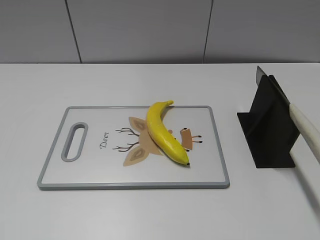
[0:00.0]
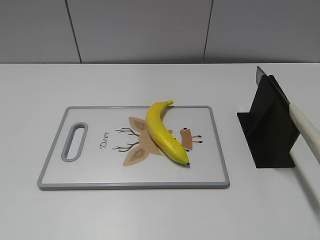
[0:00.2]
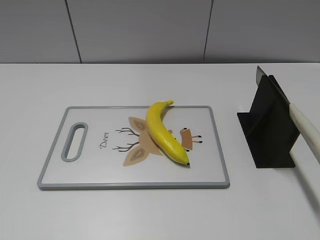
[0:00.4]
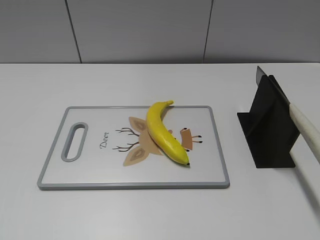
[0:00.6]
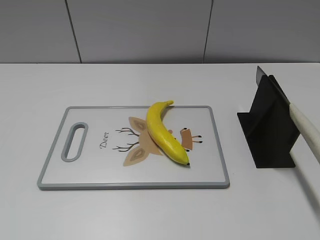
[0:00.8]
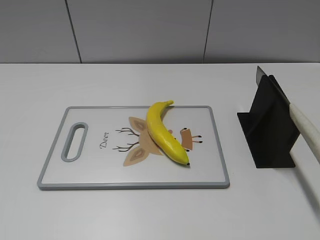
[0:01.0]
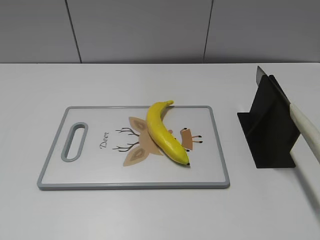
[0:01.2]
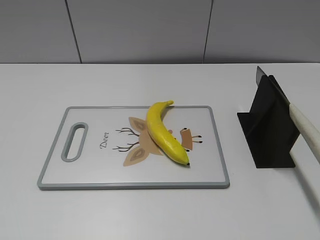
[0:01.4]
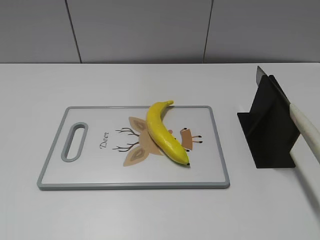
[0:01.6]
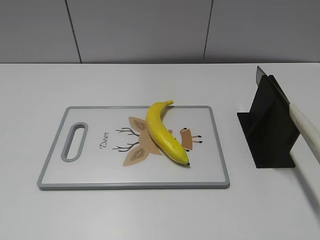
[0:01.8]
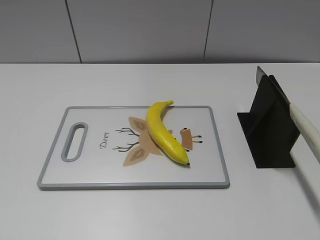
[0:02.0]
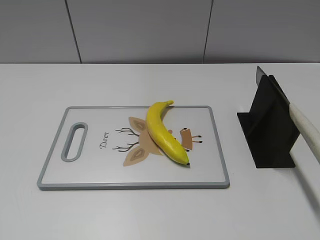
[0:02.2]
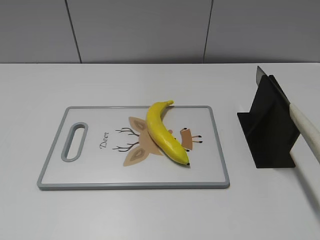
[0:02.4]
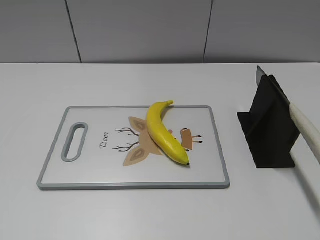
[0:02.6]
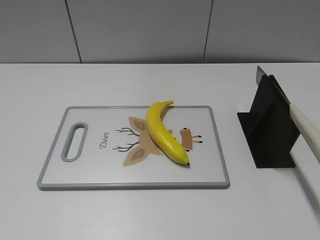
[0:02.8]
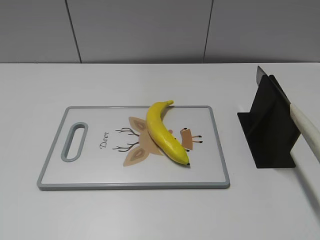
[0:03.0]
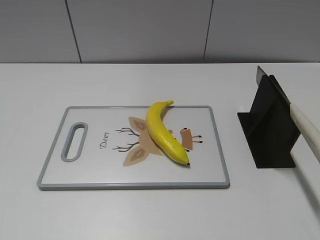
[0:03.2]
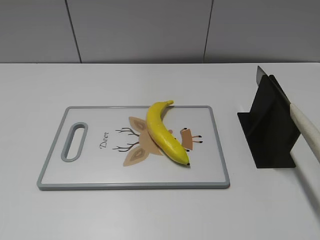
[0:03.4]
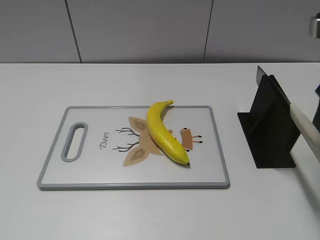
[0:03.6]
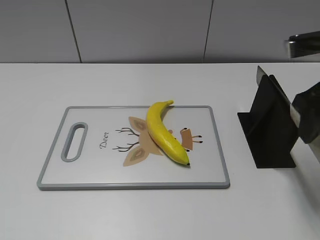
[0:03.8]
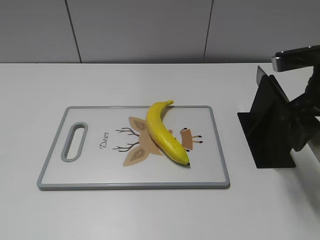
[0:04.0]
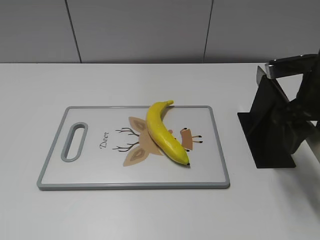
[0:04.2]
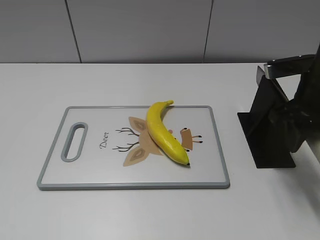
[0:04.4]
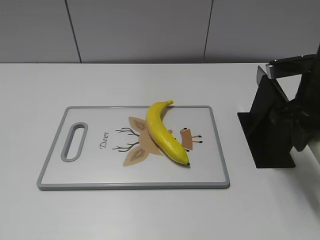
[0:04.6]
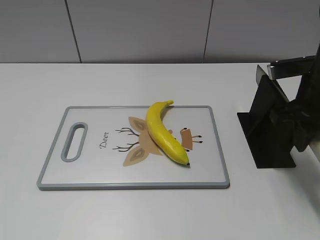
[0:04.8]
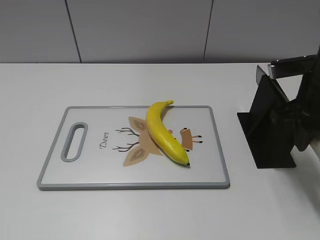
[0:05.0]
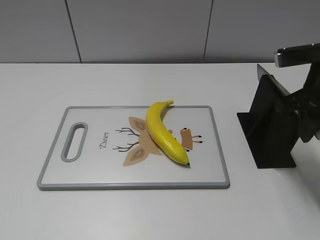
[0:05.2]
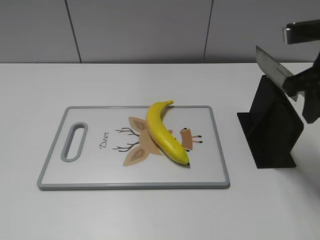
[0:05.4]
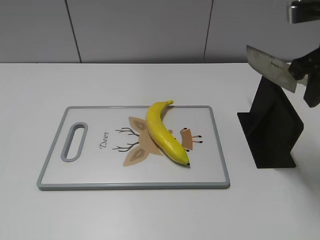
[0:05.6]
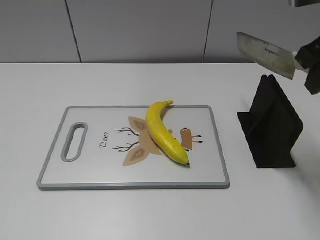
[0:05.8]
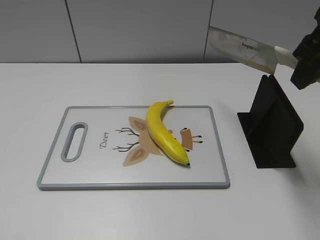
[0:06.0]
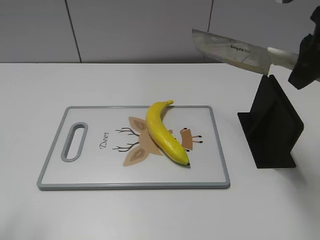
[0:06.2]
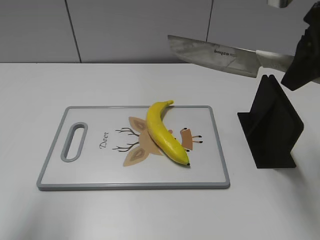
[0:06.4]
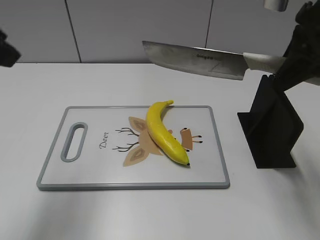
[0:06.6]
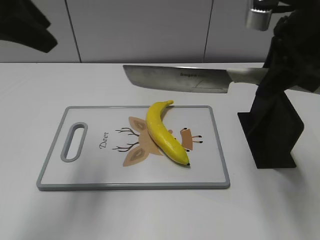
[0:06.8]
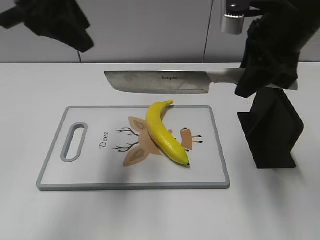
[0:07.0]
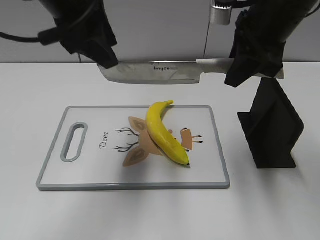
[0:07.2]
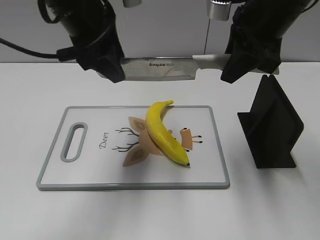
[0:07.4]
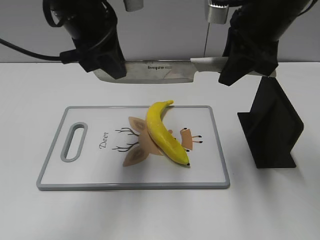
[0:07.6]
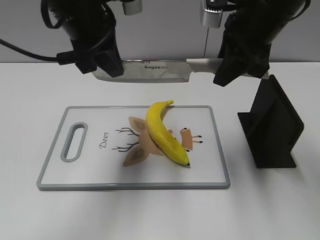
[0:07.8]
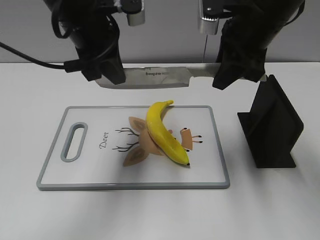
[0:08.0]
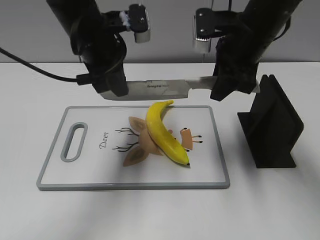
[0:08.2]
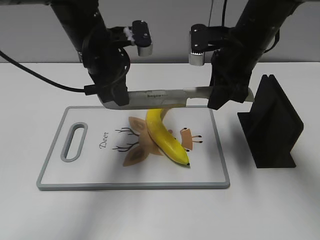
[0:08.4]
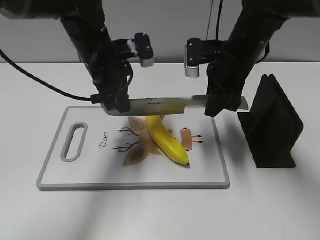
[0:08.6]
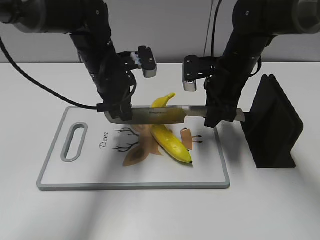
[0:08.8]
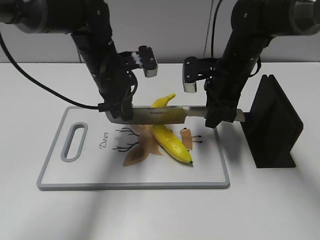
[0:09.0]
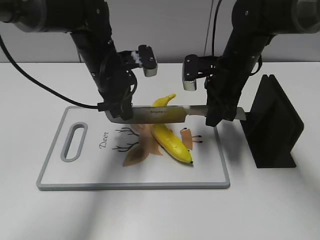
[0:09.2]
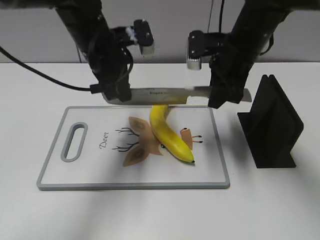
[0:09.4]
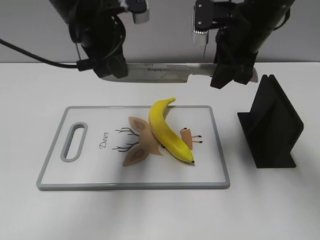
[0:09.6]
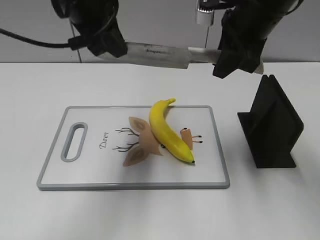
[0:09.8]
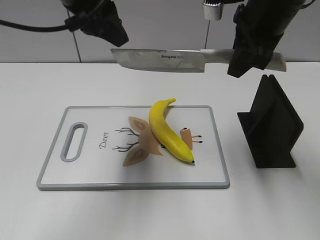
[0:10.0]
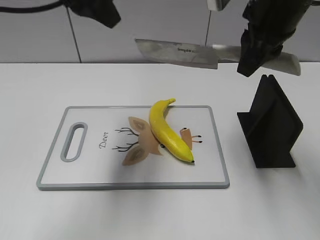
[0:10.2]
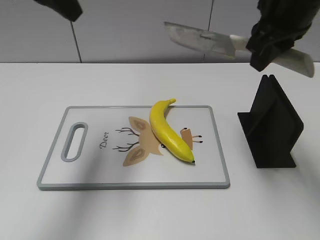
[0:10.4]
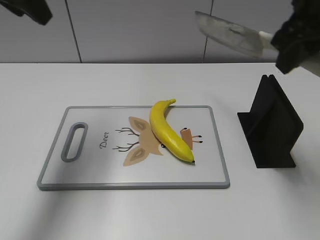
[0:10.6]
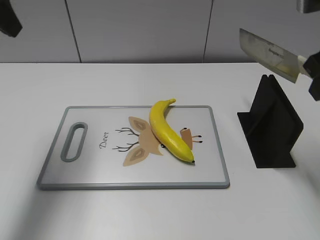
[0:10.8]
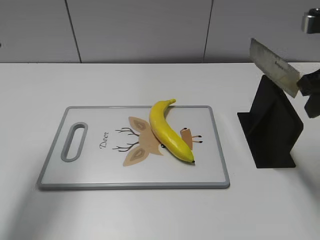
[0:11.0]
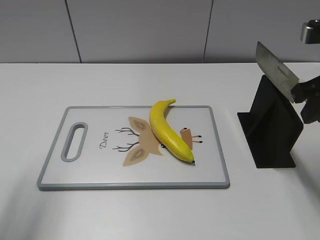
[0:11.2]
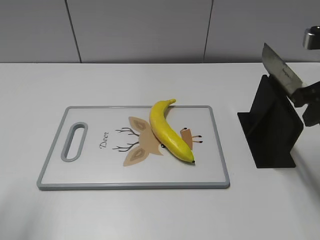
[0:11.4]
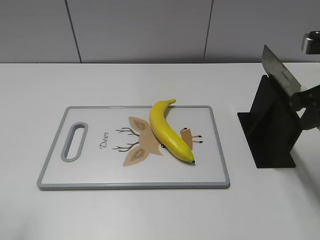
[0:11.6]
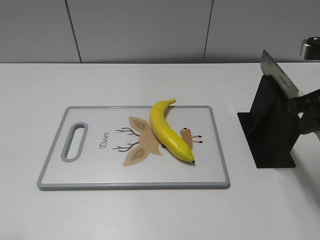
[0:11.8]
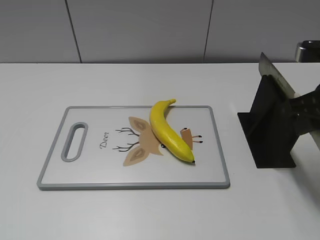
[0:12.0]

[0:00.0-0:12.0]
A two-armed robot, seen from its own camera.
Task of the whole recording: cut plastic banana.
Step, 0:00.0 to 0:06.0: Grab the knife handle with your right hand.
Step, 0:06.2 to 0:09.6: Lift the knife with your right hand.
Step, 0:09.8 to 0:11.2: Cut the banana with your right hand.
0:03.0 to 0:04.4: The right gripper shifts about 20 cm downward, forward and to the left, and closes.
0:04.4 to 0:06.0: The right gripper moves upward, some 10 cm, and closes up.
0:06.0 to 0:07.6: The right gripper moves to the left and forward, about 10 cm. Meanwhile the left gripper shifts approximately 35 cm forward and to the right, and closes.
0:07.6 to 0:09.0: The two grippers go roughly 15 cm downward.
0:09.0 to 0:10.4: The right gripper shifts some 15 cm upward, while the left gripper heads upward and to the left, covering approximately 25 cm, and opens up.
0:10.4 to 0:12.0: The left gripper moves backward and to the left, roughly 30 cm. Meanwhile the right gripper shifts about 15 cm downward, to the right and backward.

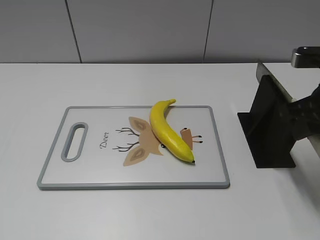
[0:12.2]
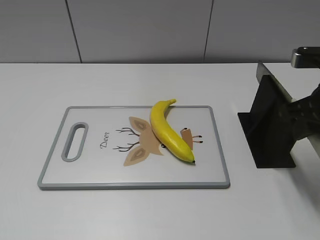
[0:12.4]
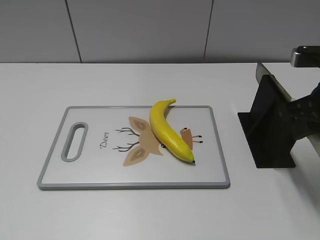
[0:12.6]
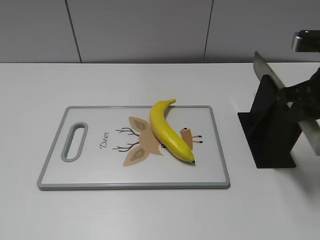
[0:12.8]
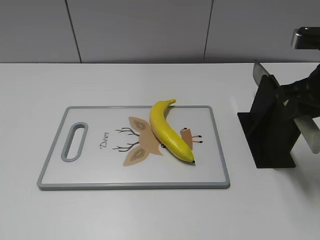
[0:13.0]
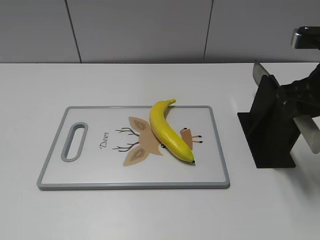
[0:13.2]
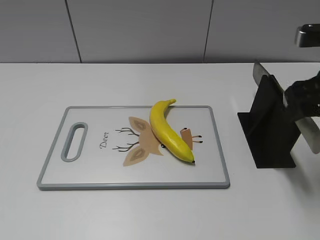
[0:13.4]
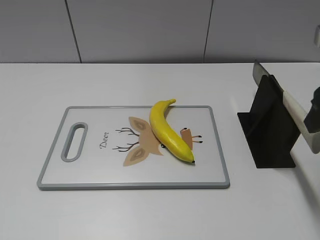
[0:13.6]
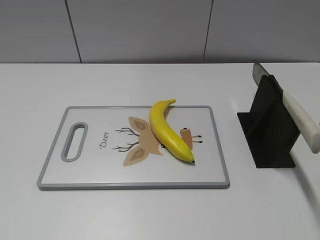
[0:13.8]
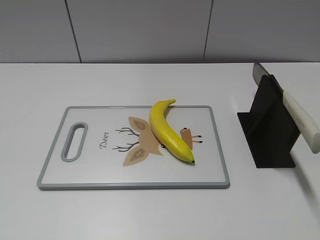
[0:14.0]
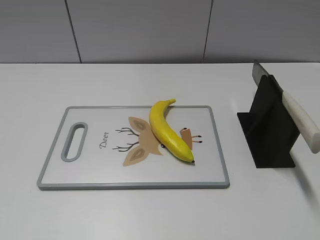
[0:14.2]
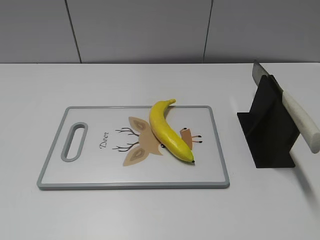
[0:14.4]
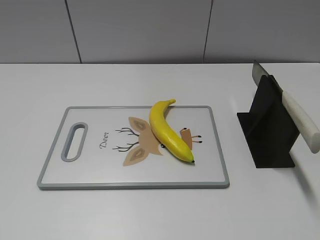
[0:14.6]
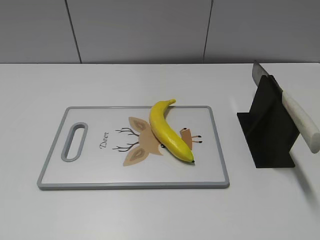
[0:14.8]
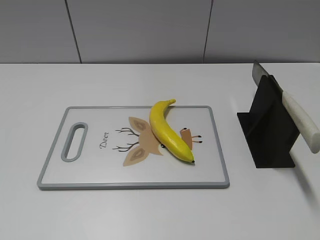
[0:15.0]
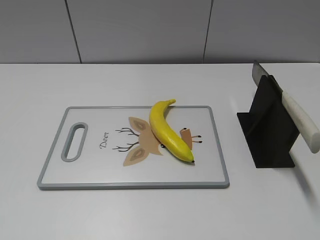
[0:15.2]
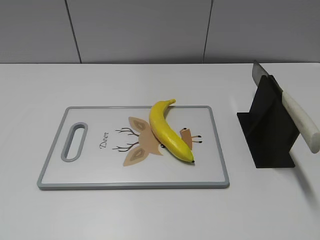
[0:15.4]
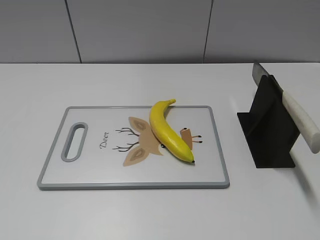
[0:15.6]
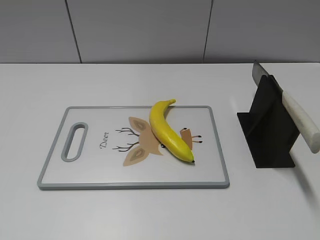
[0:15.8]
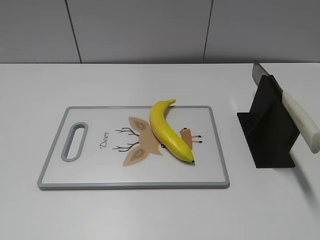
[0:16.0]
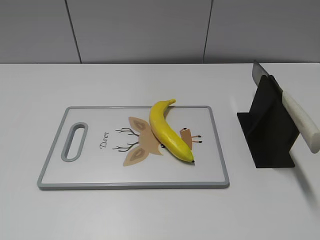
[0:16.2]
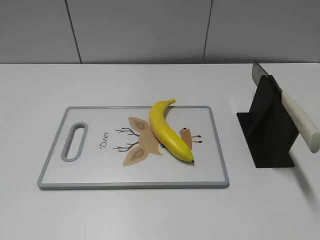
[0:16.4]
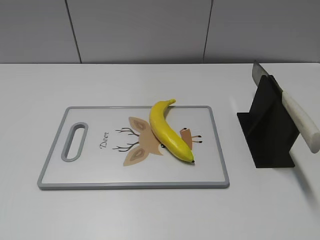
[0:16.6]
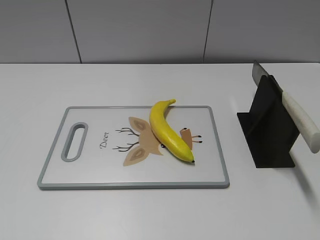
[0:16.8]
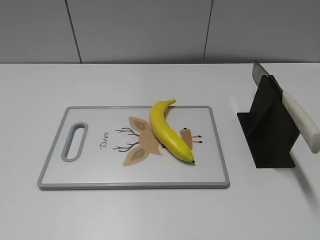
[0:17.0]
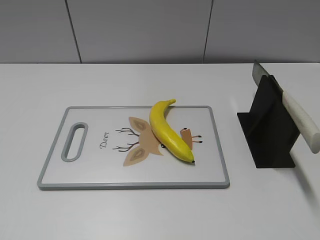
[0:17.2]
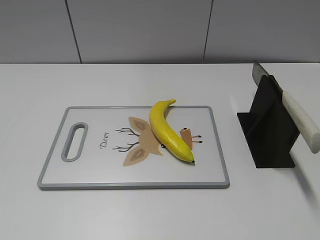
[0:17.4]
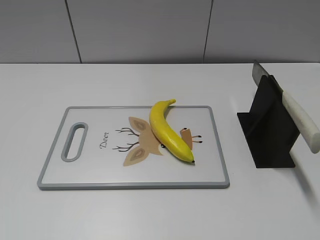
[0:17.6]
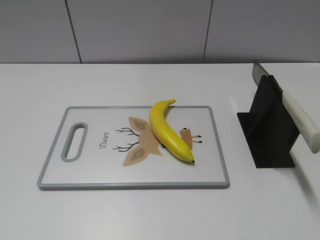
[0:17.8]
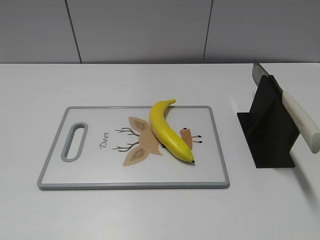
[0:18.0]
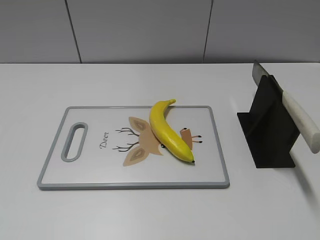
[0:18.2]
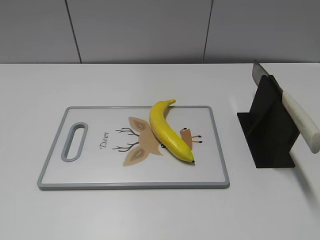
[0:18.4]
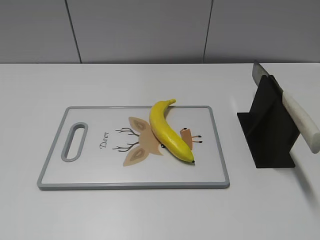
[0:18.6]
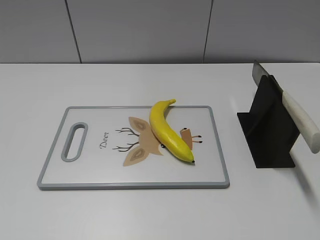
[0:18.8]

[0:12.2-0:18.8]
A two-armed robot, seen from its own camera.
Task of the whole recording: cut plastic banana.
Step, 0:12.4 to 0:16.0: Place the knife on the storage rack with your right hand.
0:12.2 to 0:13.8: The right gripper goes approximately 10 cm backward and upward, and opens.
0:15.4 to 0:18.8: Both grippers stay put.
